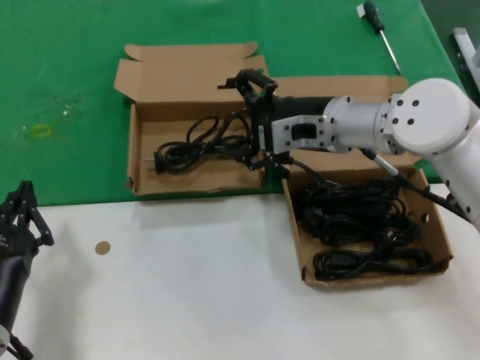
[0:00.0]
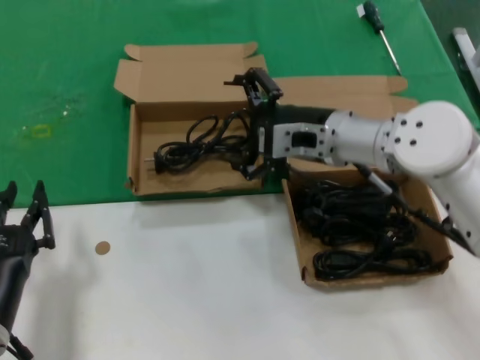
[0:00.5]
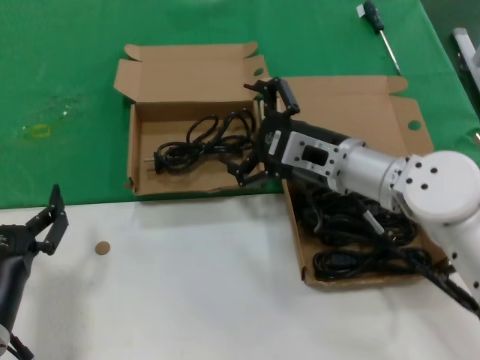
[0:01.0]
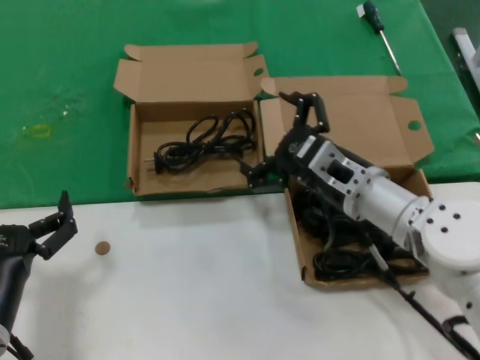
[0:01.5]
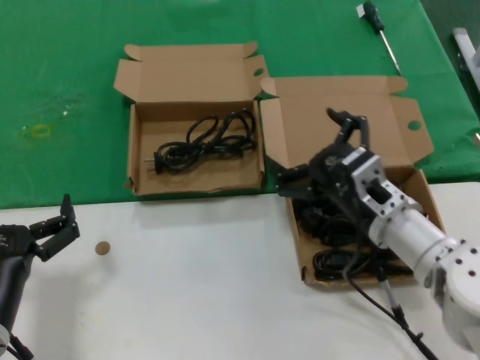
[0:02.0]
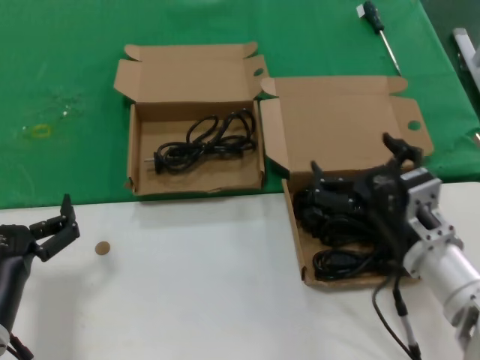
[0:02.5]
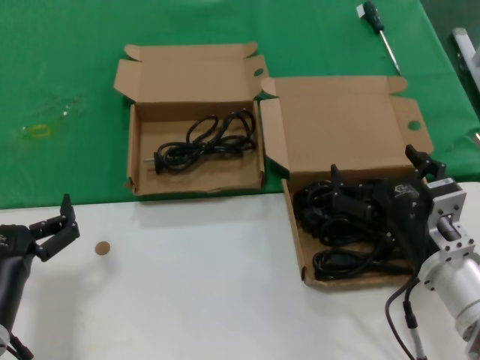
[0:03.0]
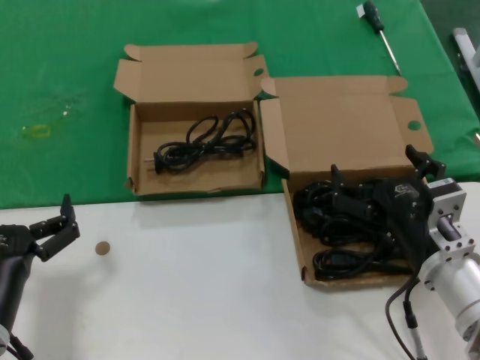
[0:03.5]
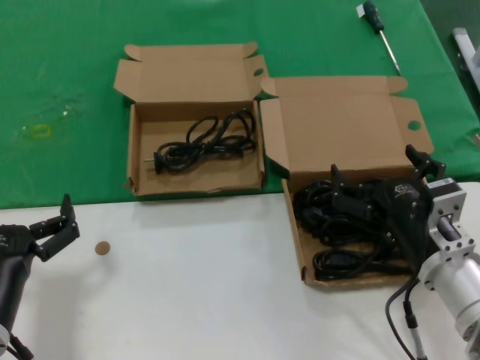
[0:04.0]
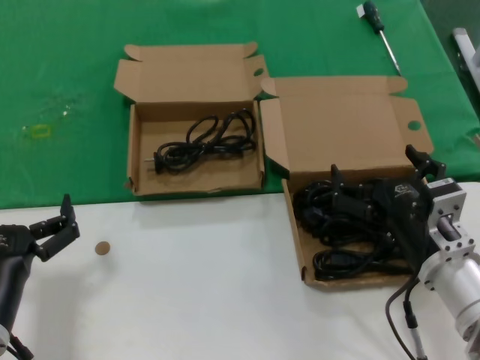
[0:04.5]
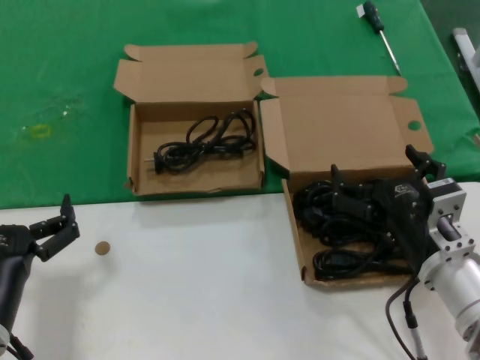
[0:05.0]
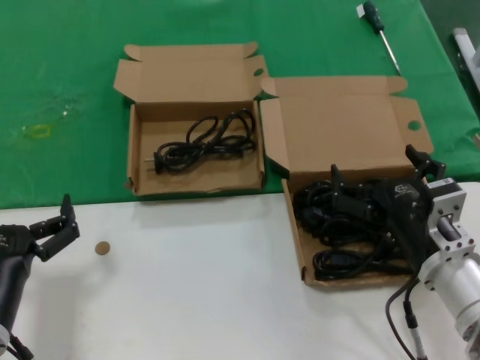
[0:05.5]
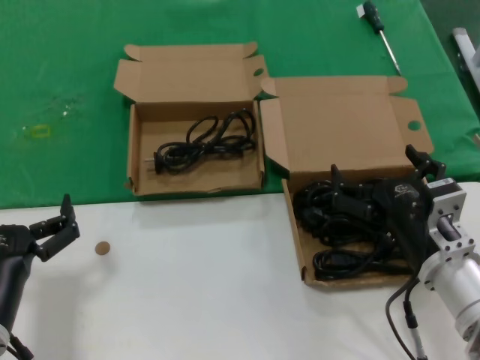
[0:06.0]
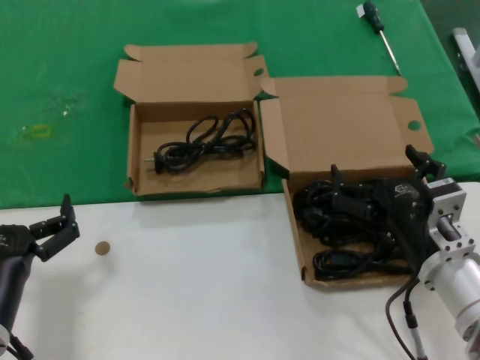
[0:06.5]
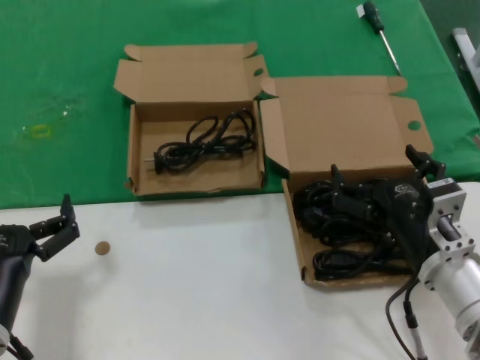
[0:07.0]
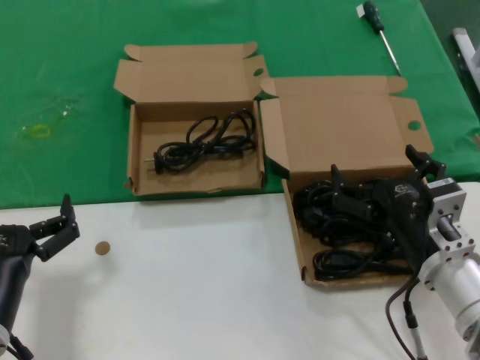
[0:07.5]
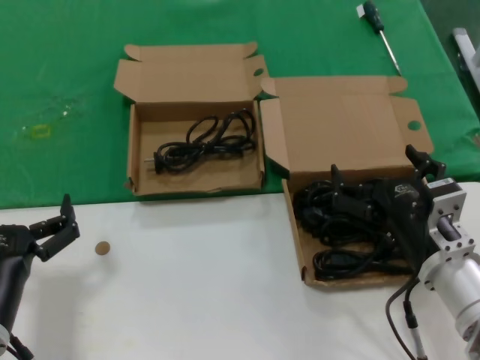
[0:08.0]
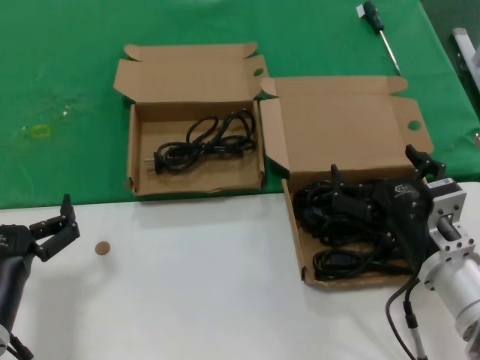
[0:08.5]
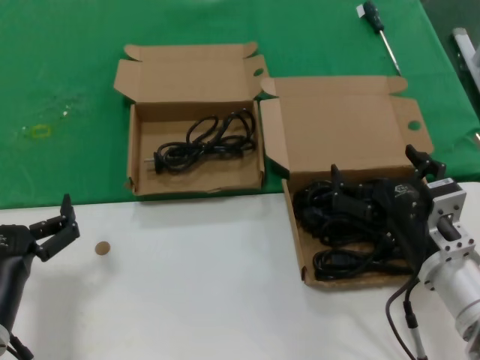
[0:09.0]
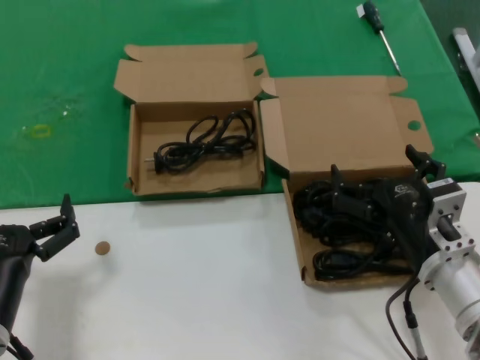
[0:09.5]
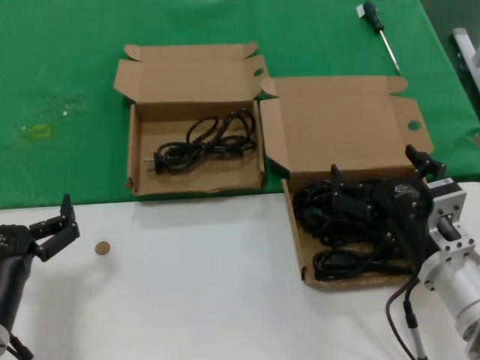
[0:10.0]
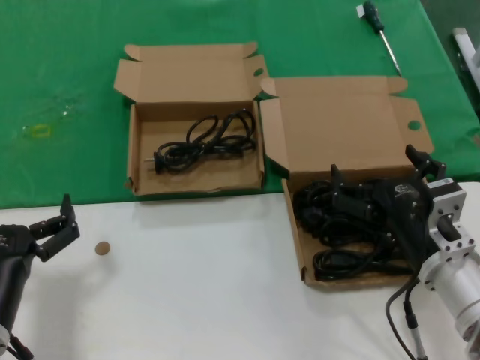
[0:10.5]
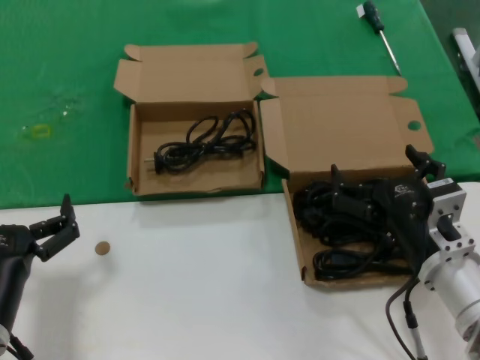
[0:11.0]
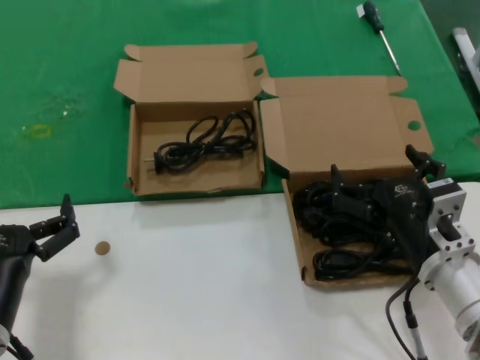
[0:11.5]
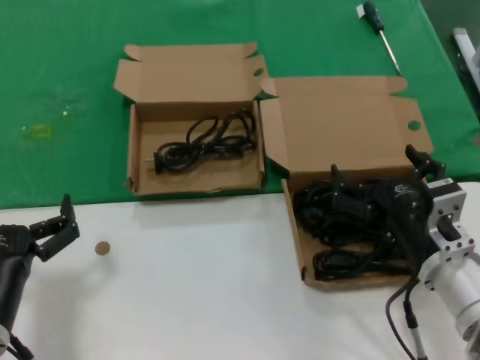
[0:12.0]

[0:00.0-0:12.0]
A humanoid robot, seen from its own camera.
Task of the whole recording: take the parts from the box containing them and put them into an empty box.
0:00.0 to 0:02.0: The right hand moves backward and downward, roughly 15 cm.
0:02.0 to 0:04.0: The right hand heads backward, covering some 5 cm.
0:04.0 to 0:12.0: The two hands keep their place.
